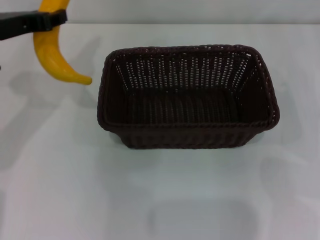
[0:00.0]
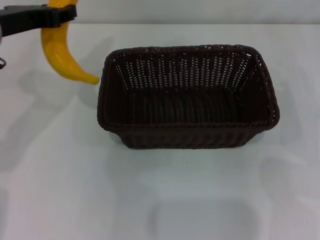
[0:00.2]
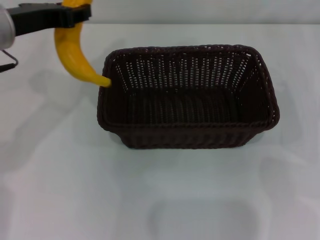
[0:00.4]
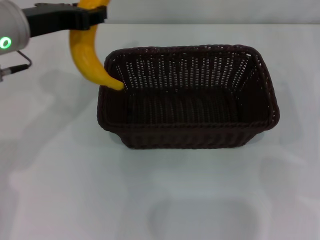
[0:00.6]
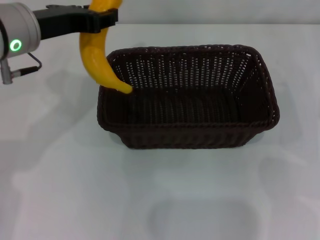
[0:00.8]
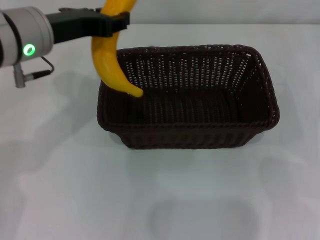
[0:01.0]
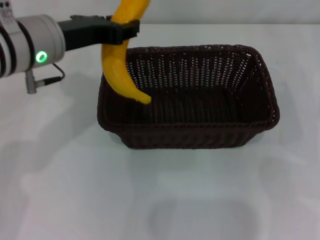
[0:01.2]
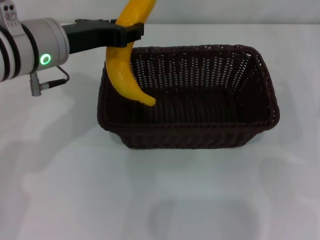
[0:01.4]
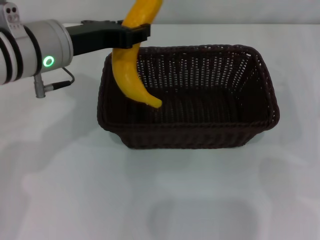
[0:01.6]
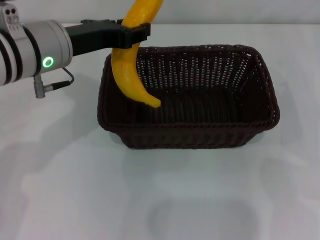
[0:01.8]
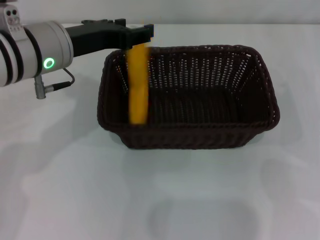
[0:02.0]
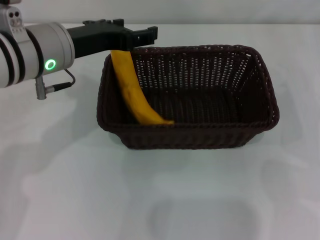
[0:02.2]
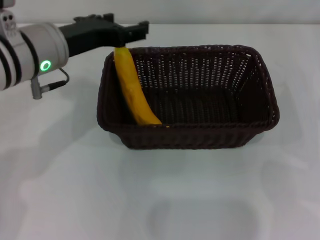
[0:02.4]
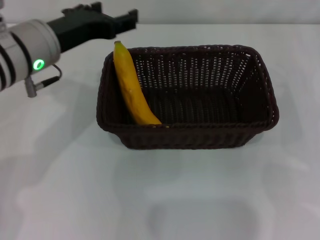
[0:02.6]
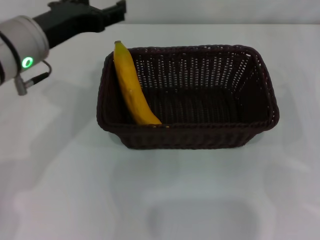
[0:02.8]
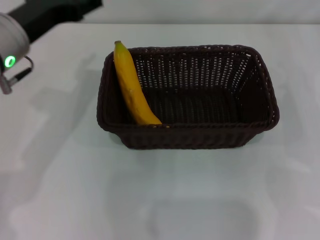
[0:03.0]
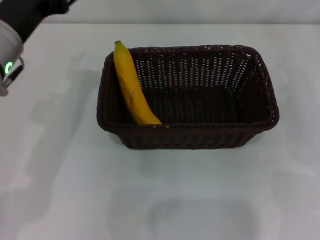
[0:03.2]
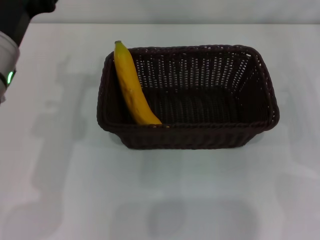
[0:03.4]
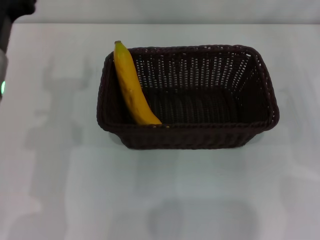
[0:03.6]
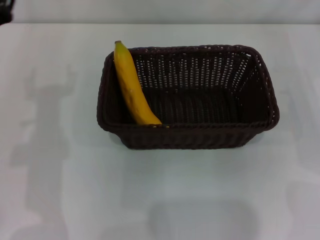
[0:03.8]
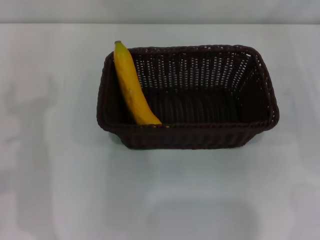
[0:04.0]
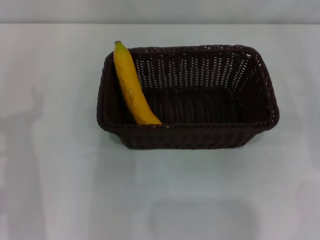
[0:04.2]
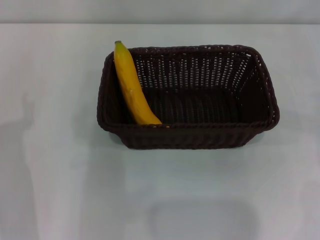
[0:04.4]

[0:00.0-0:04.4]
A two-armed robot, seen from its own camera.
Step, 0:00.0 to 0:02.2: Place the banana into the dark basket with the left gripper.
0:00.0 to 0:01.4: The left gripper moves to the right, approximately 10 cm.
0:01.4 to 0:03.0: The left gripper opens.
0:03.0 to 0:04.4: The left gripper travels backward and downward by approximately 15 cm.
